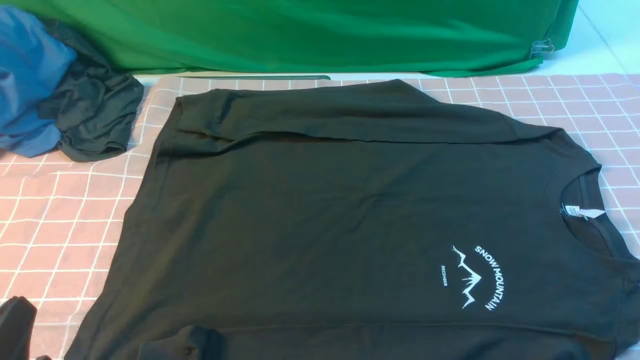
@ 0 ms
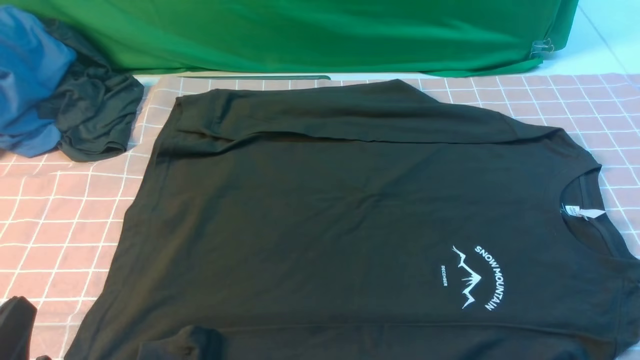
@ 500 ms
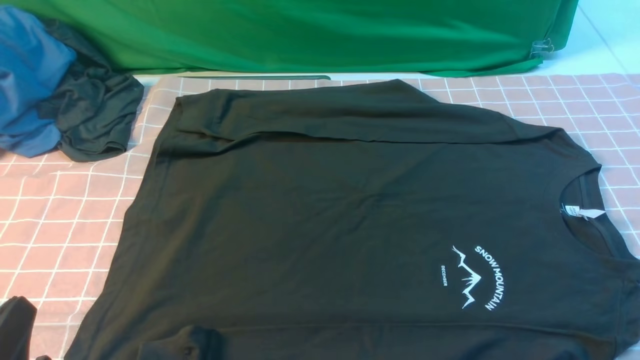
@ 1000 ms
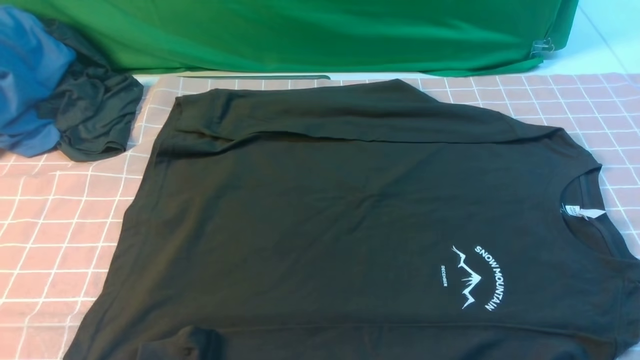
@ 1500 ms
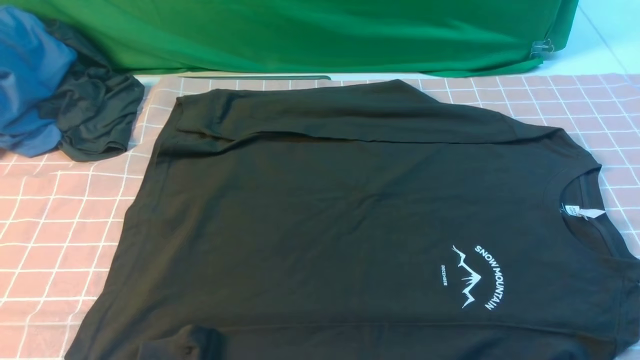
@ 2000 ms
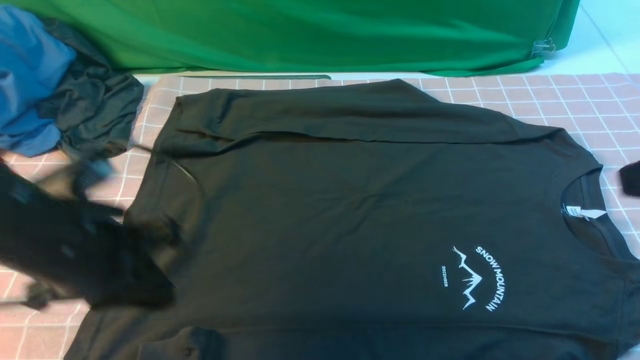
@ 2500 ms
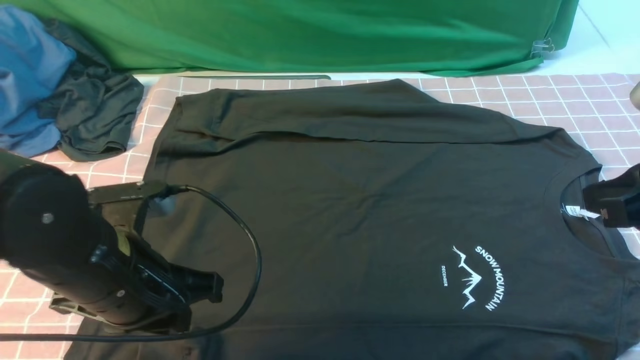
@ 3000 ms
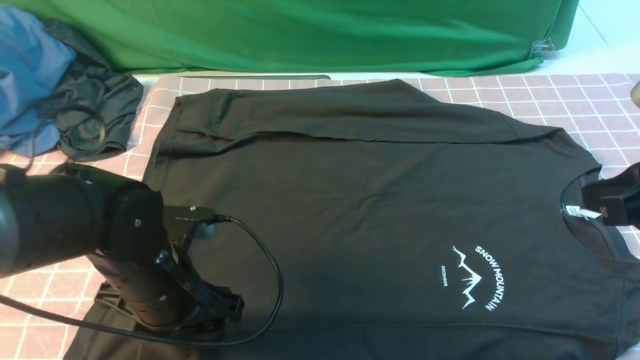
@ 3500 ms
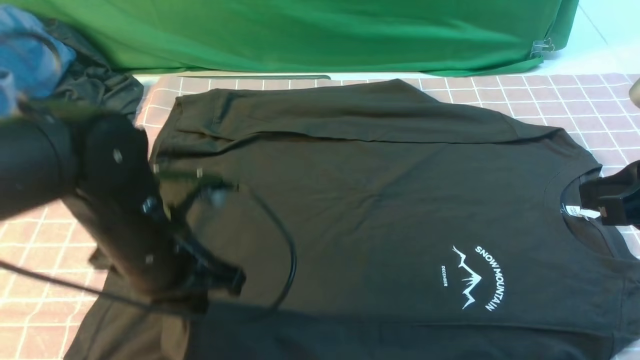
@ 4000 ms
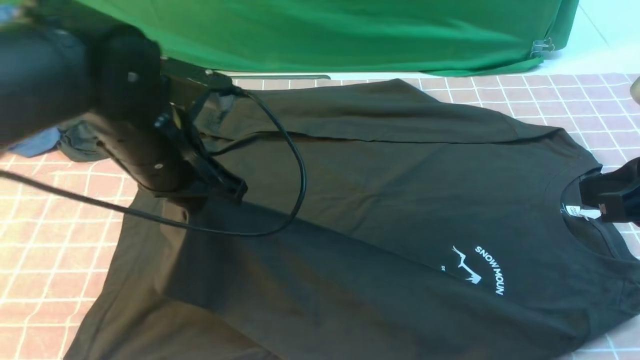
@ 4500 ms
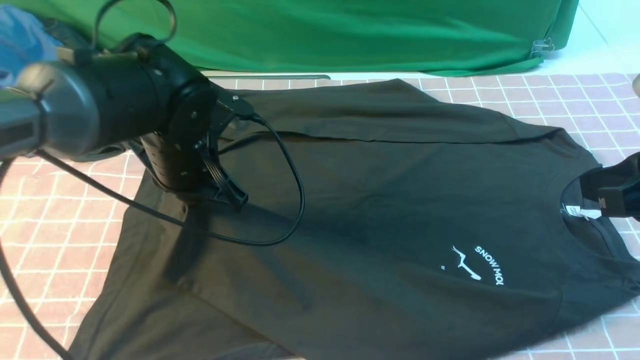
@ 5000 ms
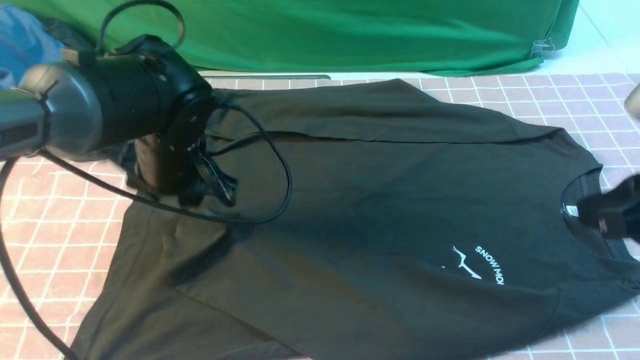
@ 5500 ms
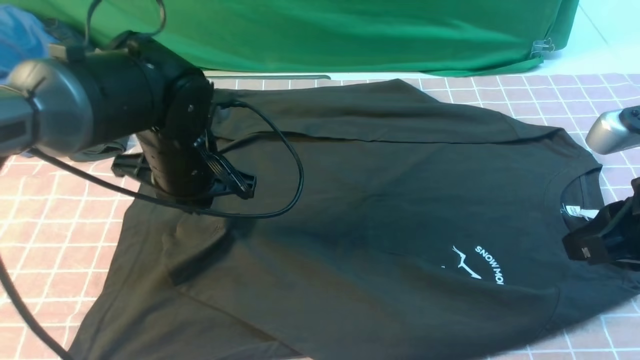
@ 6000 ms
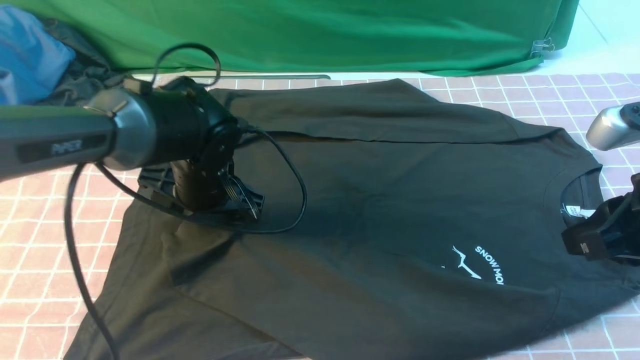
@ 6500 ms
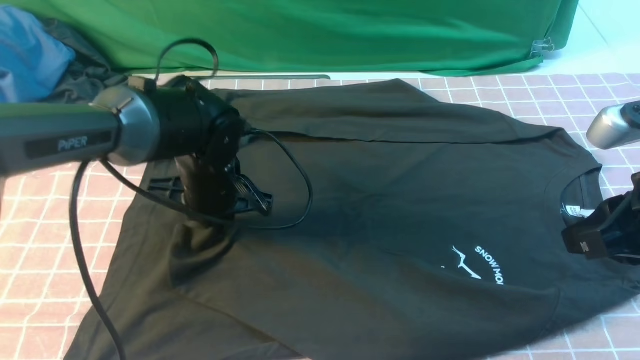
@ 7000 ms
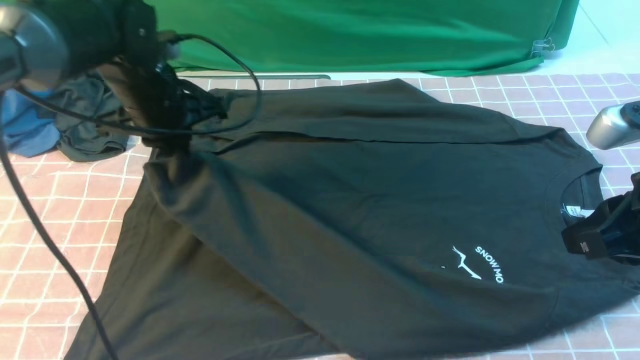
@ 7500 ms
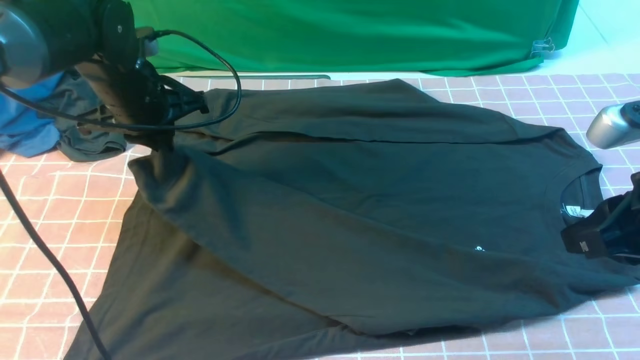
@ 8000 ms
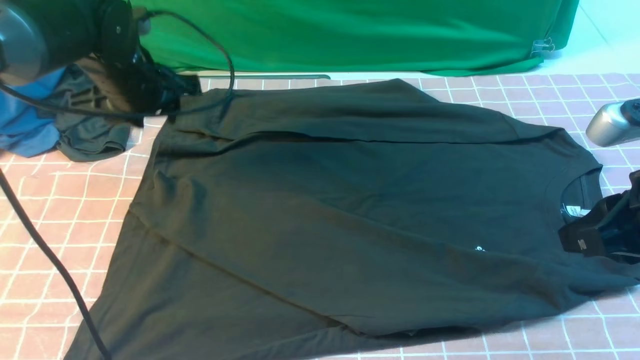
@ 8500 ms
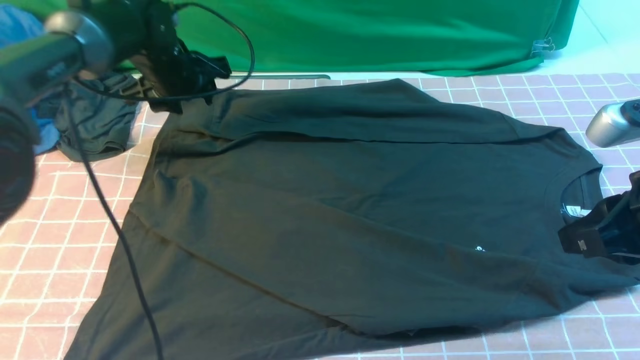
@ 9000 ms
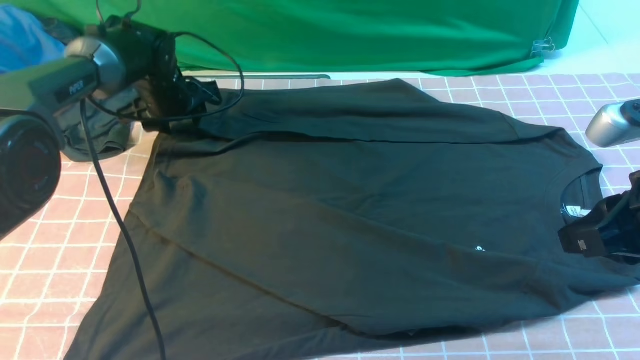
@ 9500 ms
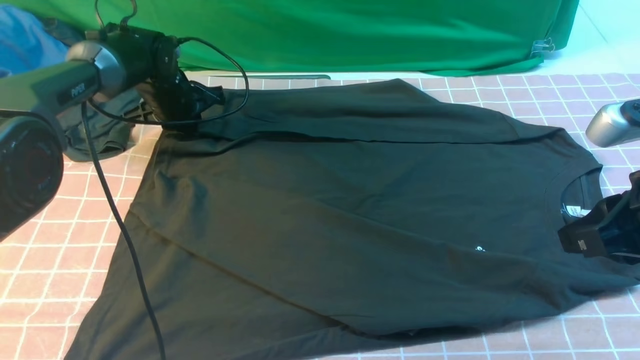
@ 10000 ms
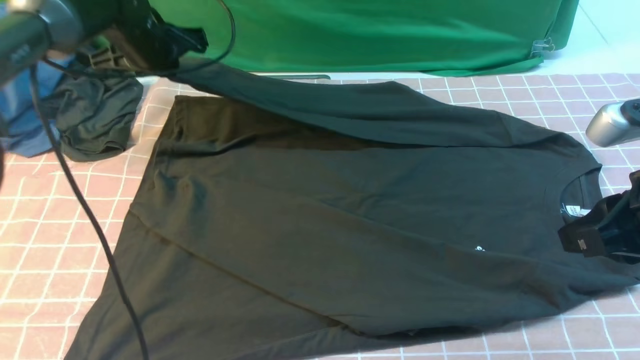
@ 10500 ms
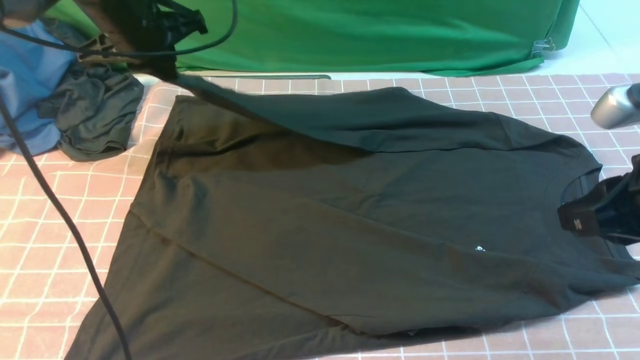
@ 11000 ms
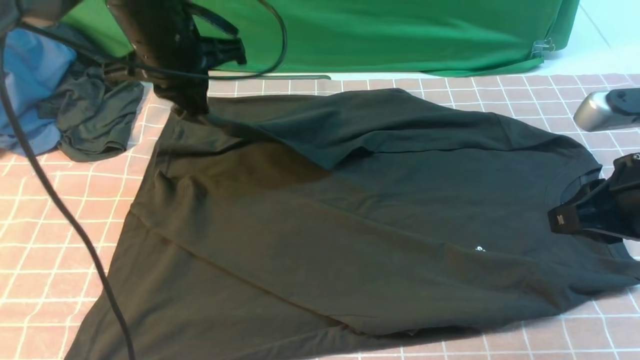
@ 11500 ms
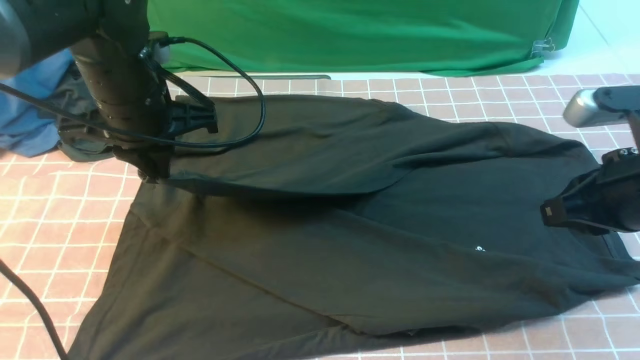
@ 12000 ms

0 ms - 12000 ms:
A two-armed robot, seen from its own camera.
Step, 0 ms - 4000 ms: use the left arm to clamp the cuff closest to it.
Step, 4500 ms - 8000 ms: use the left arm to drag and place the cuff at the centered position on the left edge of the fabric.
Step, 8500 ms - 10000 ms: use the left arm to clamp the cuff farthest from it.
0 ms - 2000 ms: The left gripper is displaced upward by some 15 cm.
2000 ms - 4000 ms: The left gripper goes approximately 20 cm forward, downward and to the right, and opens, then closes again; the right gripper shifts approximately 10 cm forward.
4000 ms - 6000 ms: The left gripper travels forward by about 10 cm.
6000 ms - 8000 ms: The left gripper moves to the left and forward, approximately 10 cm, and opens and closes again.
8000 ms - 10000 ms: The left gripper travels forward and downward by some 10 cm, and opens and closes again.
10000 ms - 12000 ms: The left gripper moves backward and upward, some 20 cm. Meanwhile the right gripper shifts by about 5 cm.

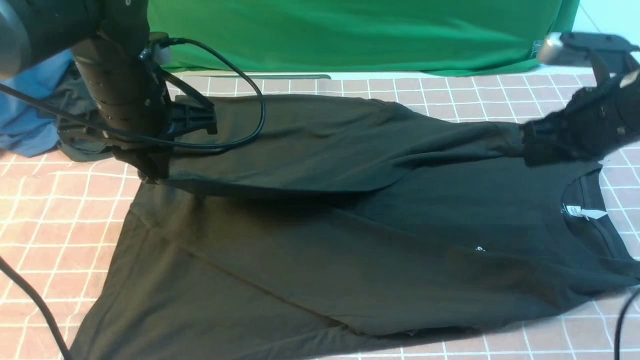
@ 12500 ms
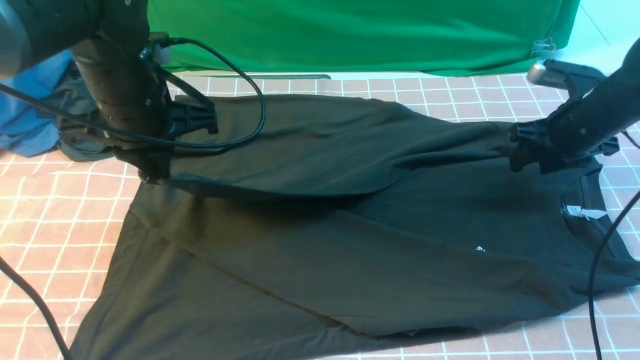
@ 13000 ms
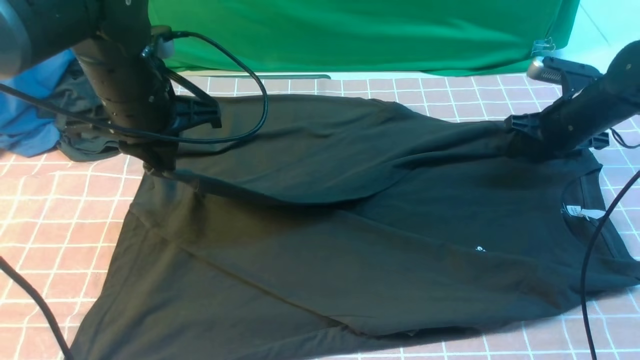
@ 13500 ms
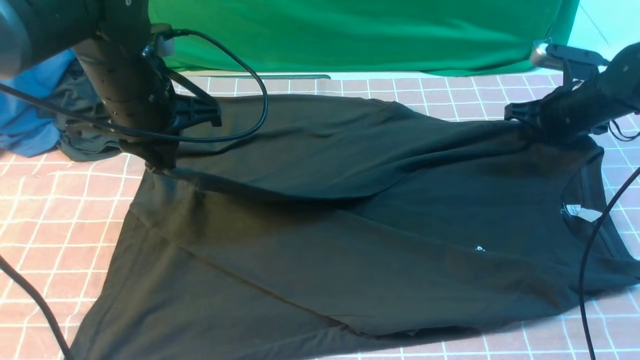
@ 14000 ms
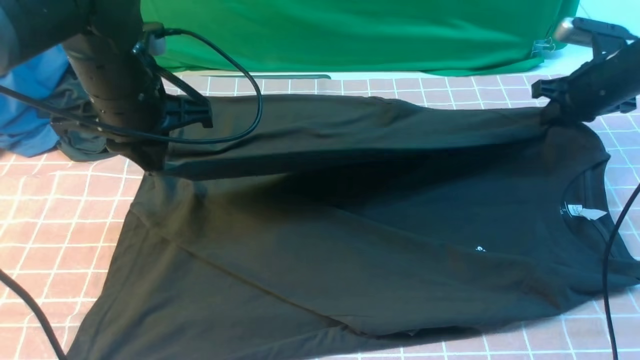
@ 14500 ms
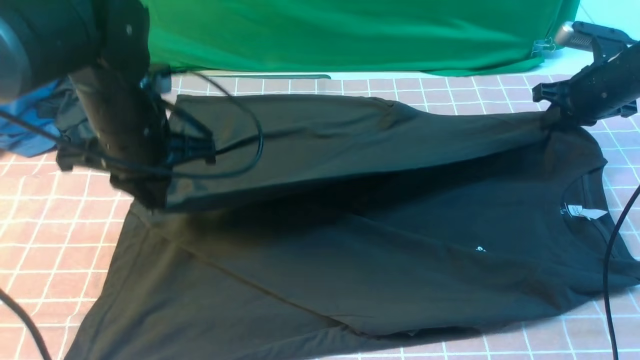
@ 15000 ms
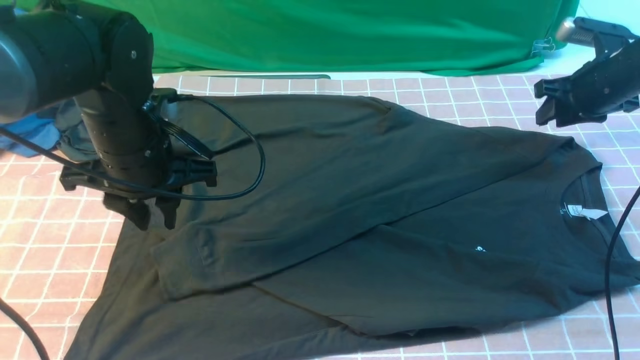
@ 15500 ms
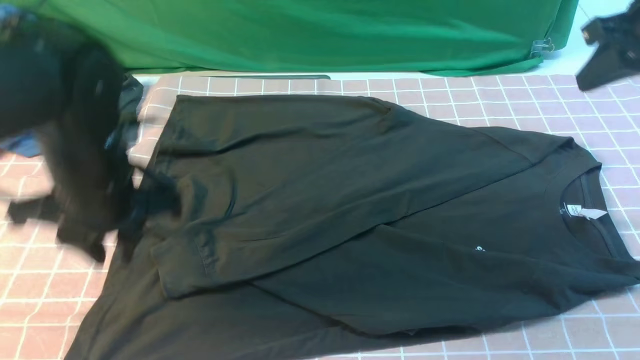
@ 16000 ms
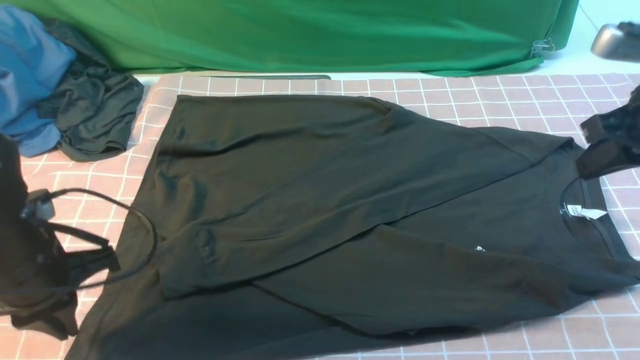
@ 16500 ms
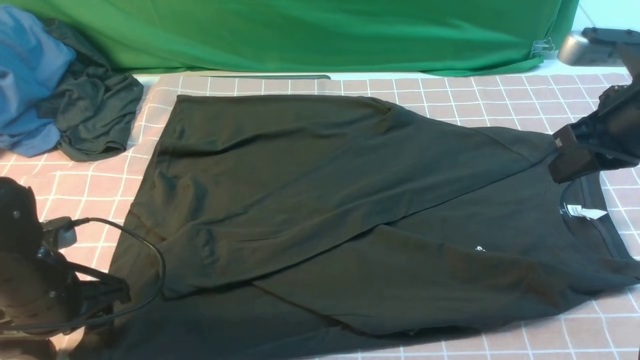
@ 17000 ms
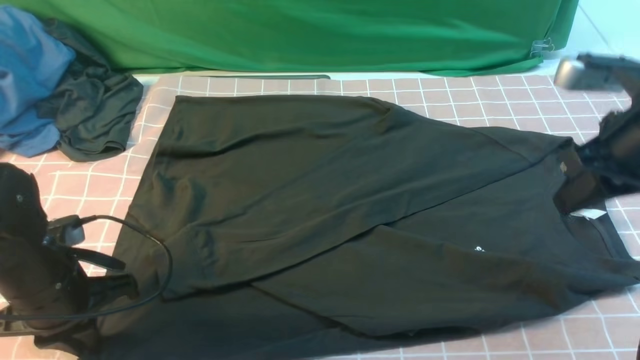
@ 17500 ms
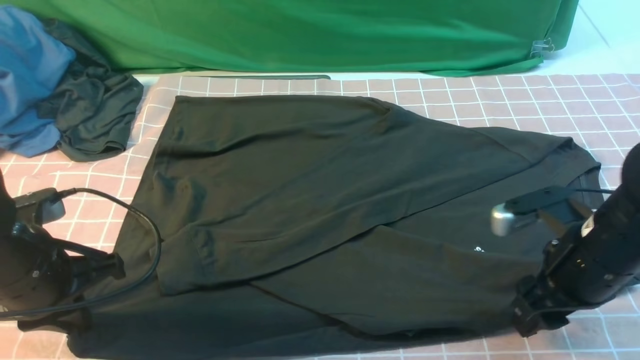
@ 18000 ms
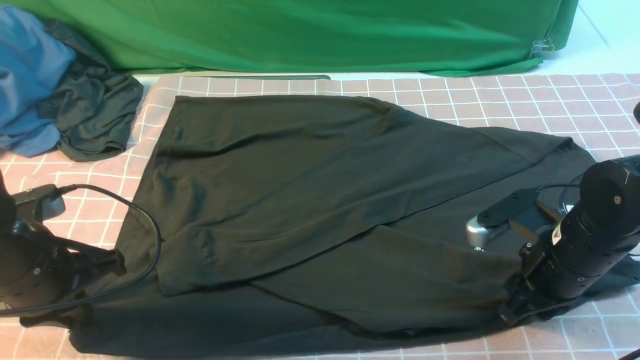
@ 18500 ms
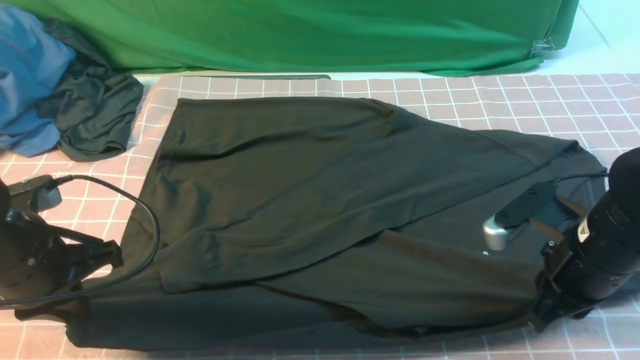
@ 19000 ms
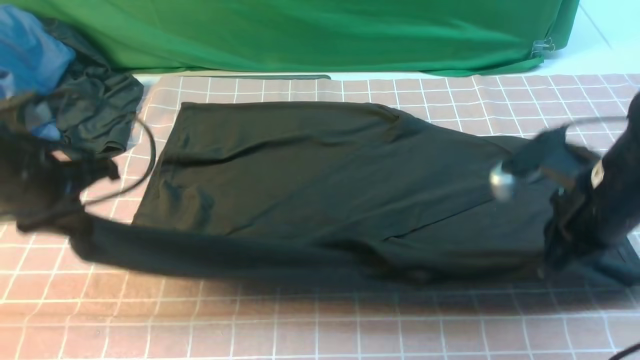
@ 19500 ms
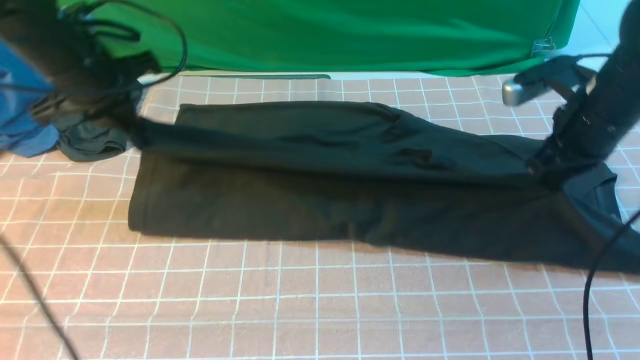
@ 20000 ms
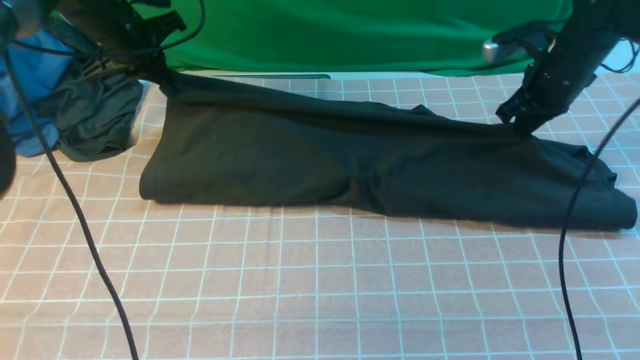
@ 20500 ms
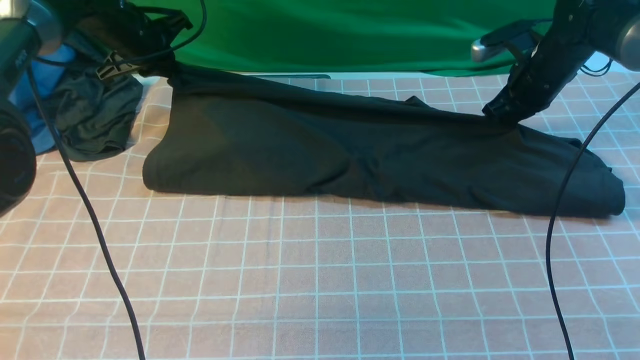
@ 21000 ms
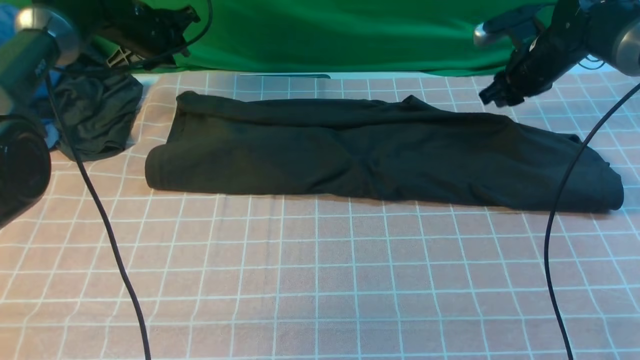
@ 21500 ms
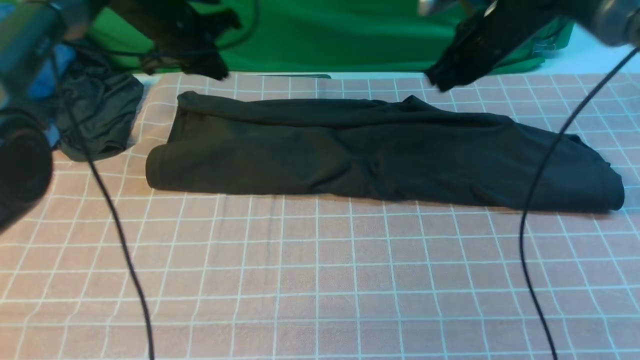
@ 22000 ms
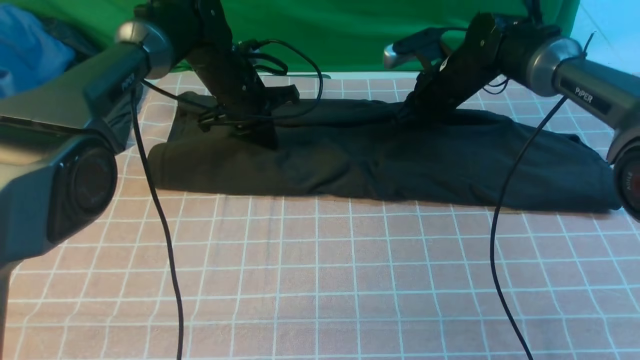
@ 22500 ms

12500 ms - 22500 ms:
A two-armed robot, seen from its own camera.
Step, 12500 ms - 15500 ms: use the left arm to drag and drop the cuff onto the cuff closest to the left arm.
Step, 16000 ms - 19000 ms: use both arms simultaneously to clamp the lower edge of the clothing fabric.
Step, 19500 ms - 21500 ms: use both arms to drag the lower edge of the fabric forward and fold it over the upper edge.
12500 ms - 14500 ms: The right gripper travels forward, to the right and downward by roughly 15 cm, and opens and closes again.
14500 ms - 16500 ms: The left gripper shifts roughly 20 cm backward, downward and to the left, while the right gripper shifts some 20 cm backward and upward.
16500 ms - 18500 ms: The left gripper opens and closes again, while the right gripper goes about 15 cm downward, to the left and backward, and opens up.
18500 ms - 20500 ms: The grippers both shift forward by roughly 25 cm. The right gripper closes.
20500 ms - 22500 ms: The left gripper shifts roughly 15 cm to the right and downward, and opens, then closes once more, while the right gripper heads to the left, covering approximately 10 cm.
